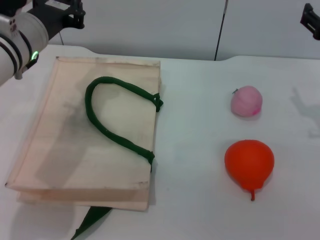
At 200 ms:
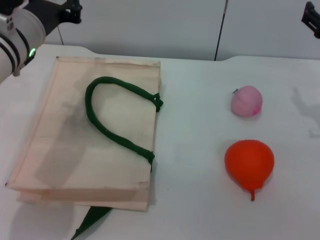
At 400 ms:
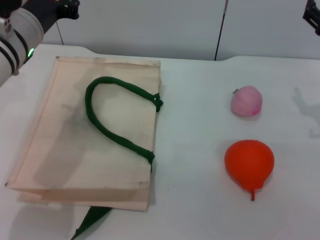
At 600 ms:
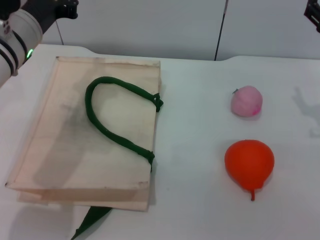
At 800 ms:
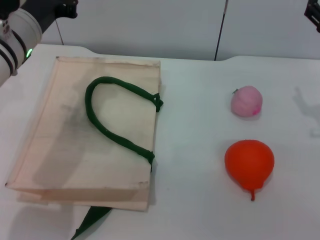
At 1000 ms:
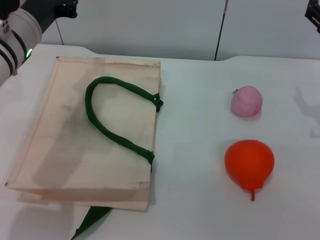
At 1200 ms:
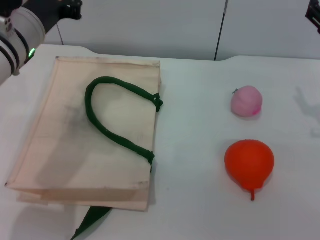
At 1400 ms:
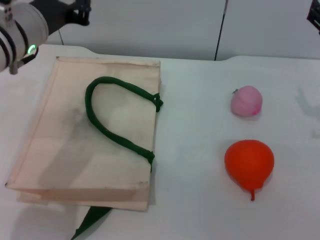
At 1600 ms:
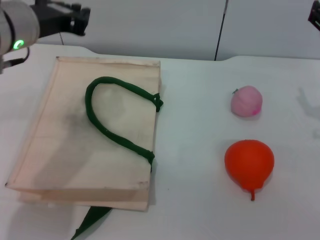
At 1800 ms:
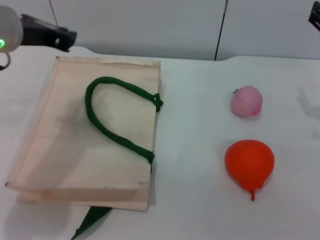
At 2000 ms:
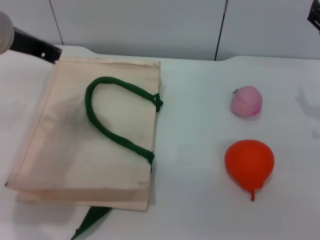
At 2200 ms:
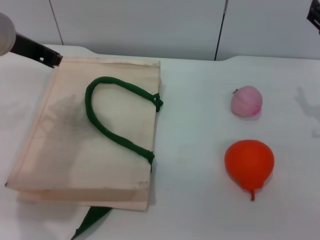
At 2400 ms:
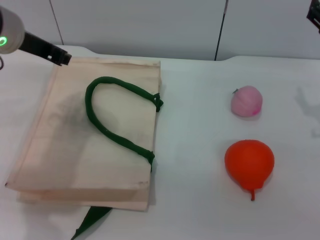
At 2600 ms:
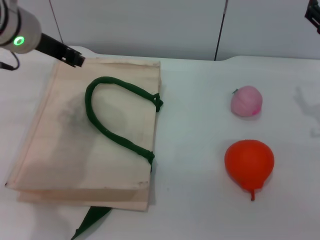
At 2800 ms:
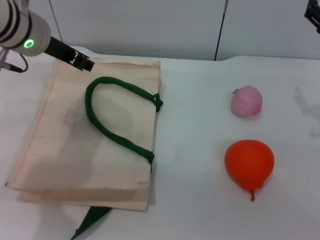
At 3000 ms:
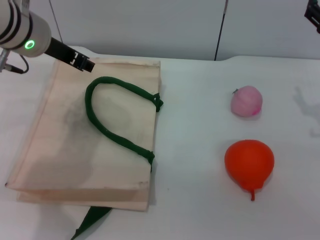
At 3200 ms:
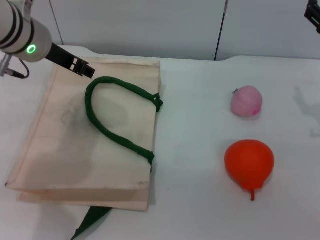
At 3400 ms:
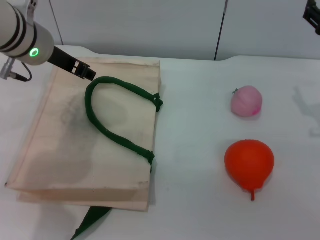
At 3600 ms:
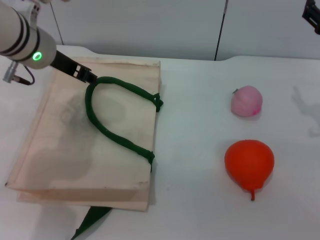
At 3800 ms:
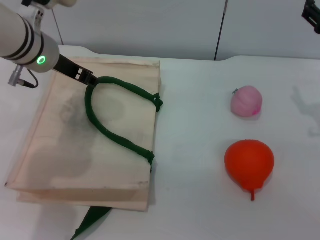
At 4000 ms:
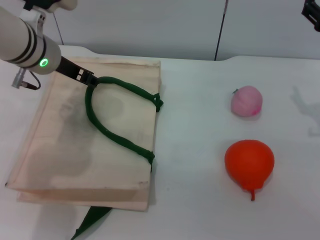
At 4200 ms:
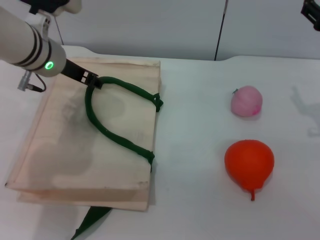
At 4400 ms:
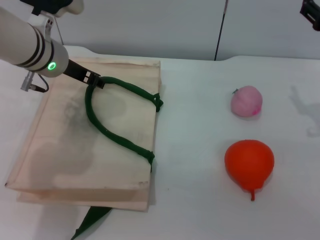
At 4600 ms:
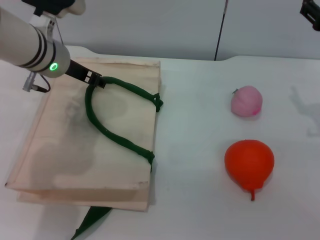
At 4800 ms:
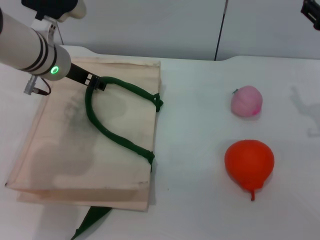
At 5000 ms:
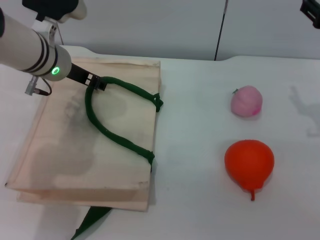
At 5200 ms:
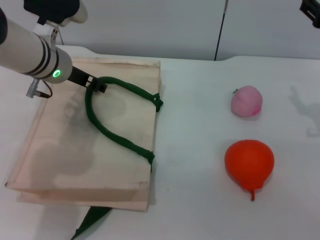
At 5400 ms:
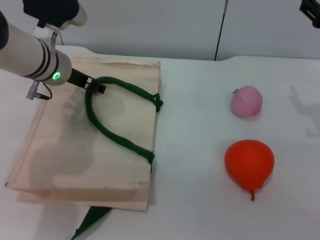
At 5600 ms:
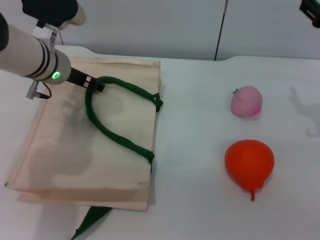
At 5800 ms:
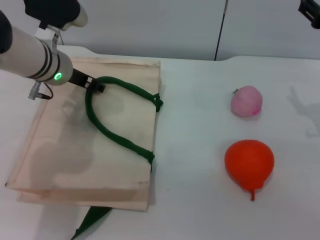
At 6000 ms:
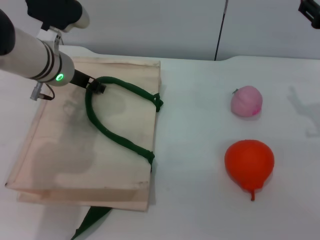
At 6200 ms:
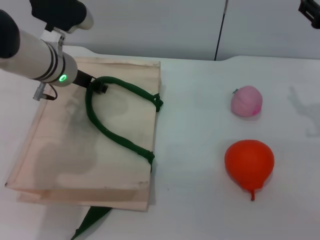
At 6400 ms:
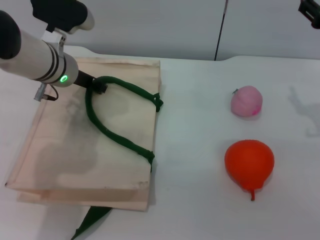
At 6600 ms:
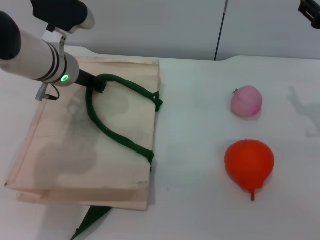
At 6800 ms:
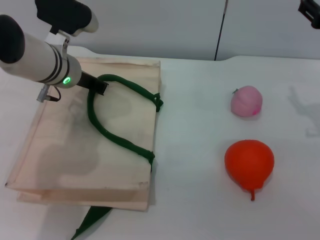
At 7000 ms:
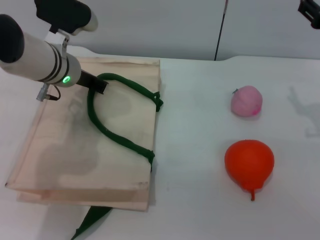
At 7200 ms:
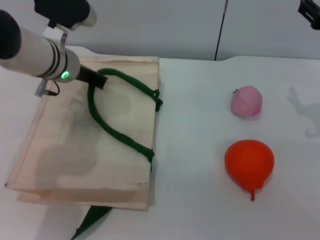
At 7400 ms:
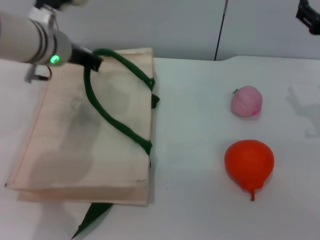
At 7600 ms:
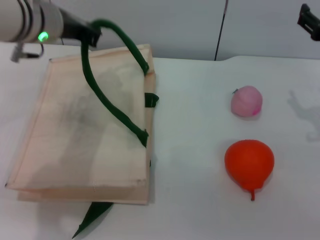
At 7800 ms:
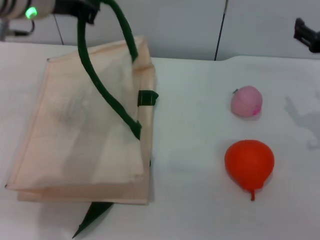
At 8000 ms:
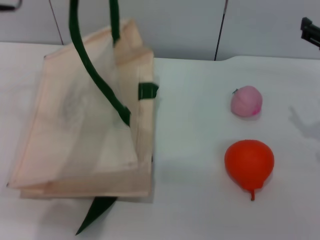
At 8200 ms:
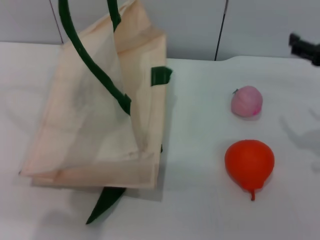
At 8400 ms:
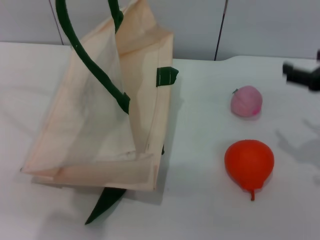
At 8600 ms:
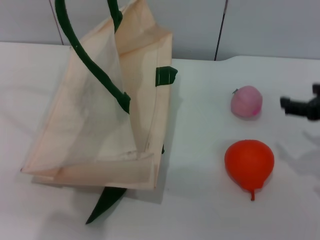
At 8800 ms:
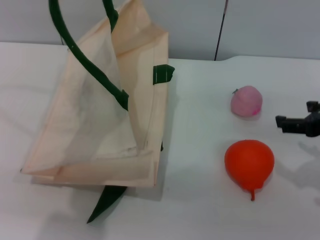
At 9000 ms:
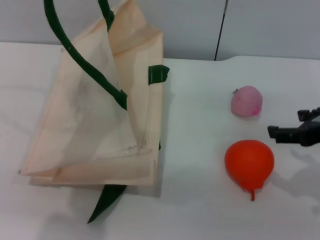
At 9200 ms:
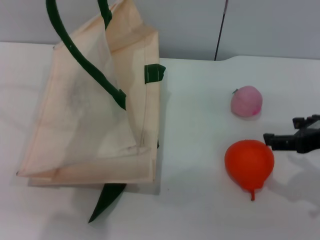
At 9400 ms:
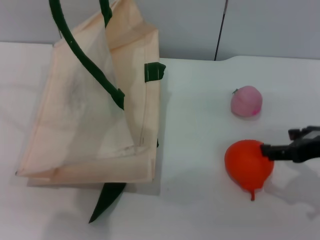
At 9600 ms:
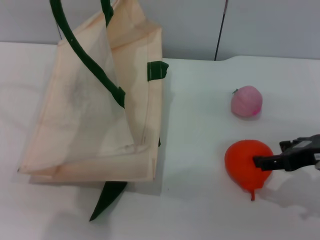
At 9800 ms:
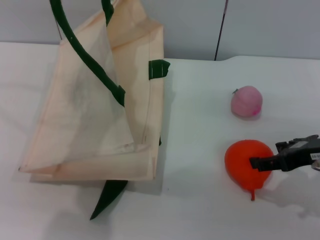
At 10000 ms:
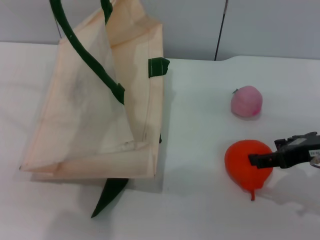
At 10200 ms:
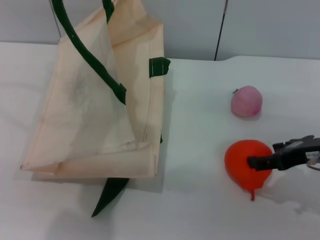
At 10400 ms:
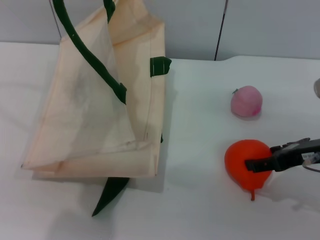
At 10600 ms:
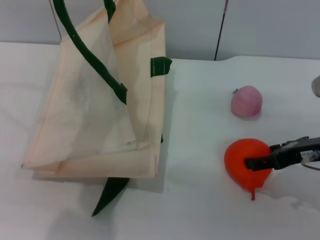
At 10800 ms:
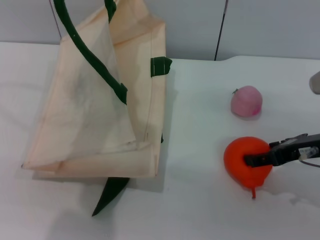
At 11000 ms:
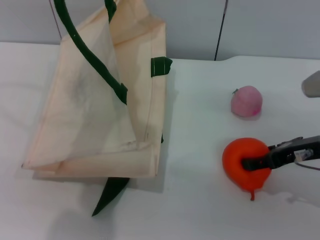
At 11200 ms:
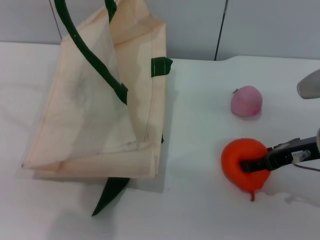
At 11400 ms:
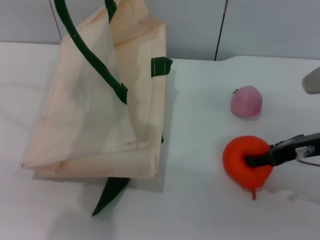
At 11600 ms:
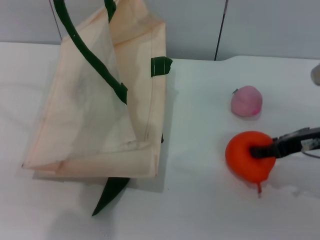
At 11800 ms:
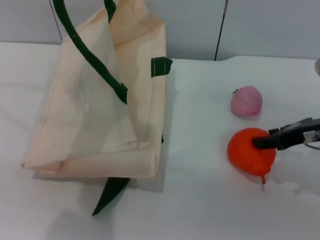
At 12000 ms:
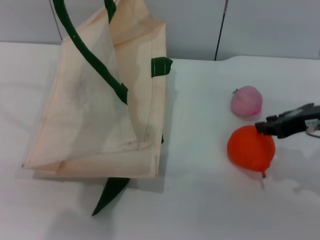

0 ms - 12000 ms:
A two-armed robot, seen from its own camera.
Task of the whole recording: pick up the orange and peach from the table and place it in the white handbag.
Step, 0 ms - 7200 ms: Lift the woven bag with the left gripper to open it.
0 ms - 1600 ms: The left gripper ends up roughly 5 cm from where it was.
1600 ms - 3000 ms: The left gripper opens.
3000 ms - 4400 ms: The left gripper moves downward, roughly 5 cm.
4400 ms - 6000 ms: The grippers move only a little.
6000 ms - 7600 ms: The left gripper moves upward, approximately 10 cm, and closes.
7600 ms - 9000 ms: The right gripper shifts some 10 cm backward, while the left gripper goes about 10 cm upward and backward.
9000 ms - 10400 ms: The right gripper ends up some 5 cm from where it was.
10400 ms - 12000 ms: The right gripper closes.

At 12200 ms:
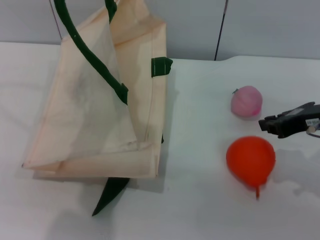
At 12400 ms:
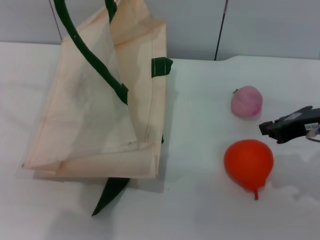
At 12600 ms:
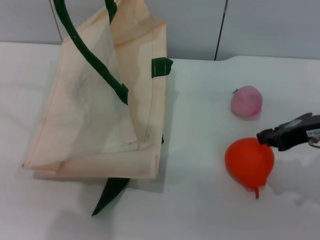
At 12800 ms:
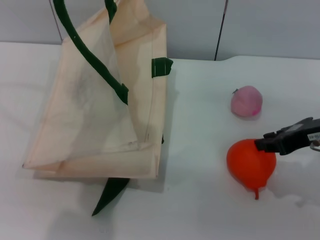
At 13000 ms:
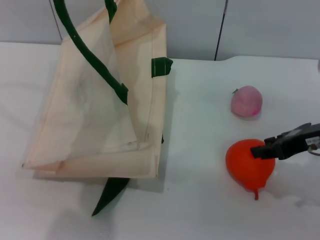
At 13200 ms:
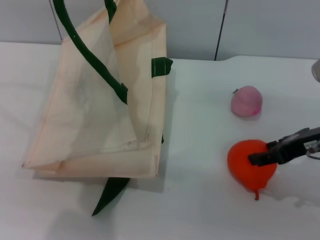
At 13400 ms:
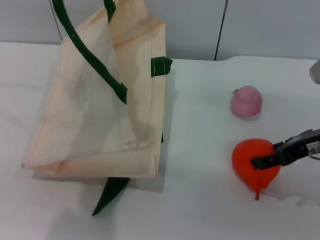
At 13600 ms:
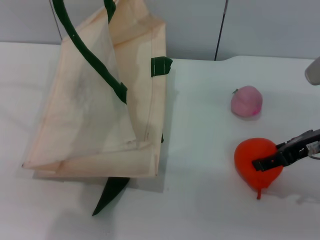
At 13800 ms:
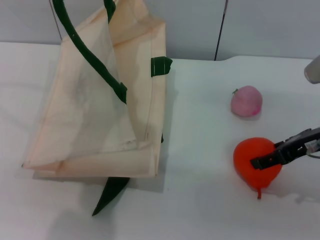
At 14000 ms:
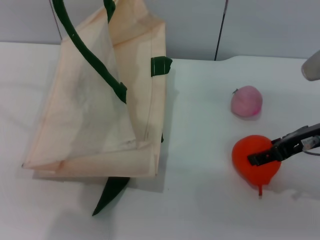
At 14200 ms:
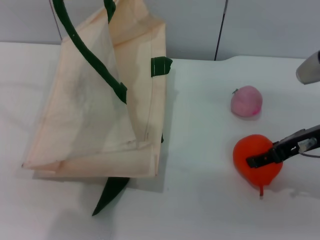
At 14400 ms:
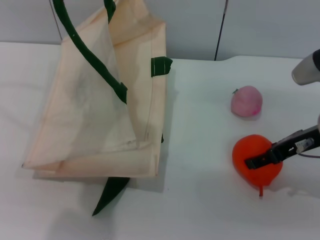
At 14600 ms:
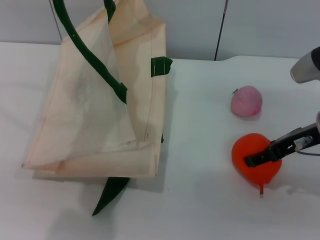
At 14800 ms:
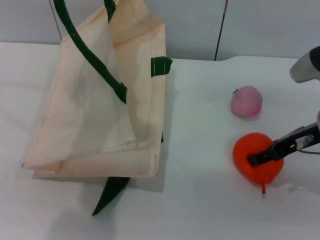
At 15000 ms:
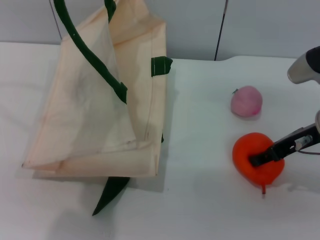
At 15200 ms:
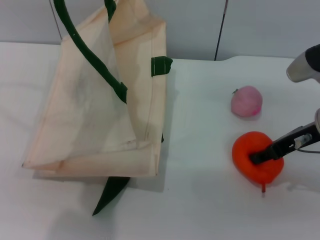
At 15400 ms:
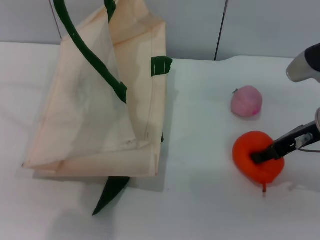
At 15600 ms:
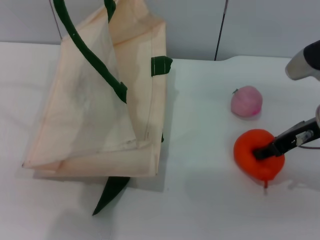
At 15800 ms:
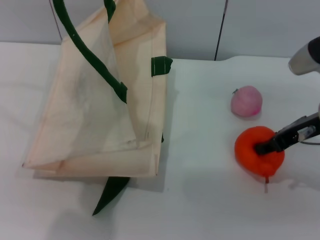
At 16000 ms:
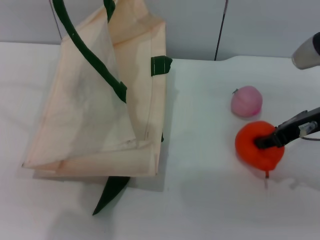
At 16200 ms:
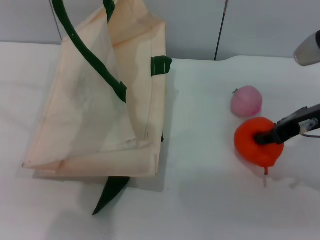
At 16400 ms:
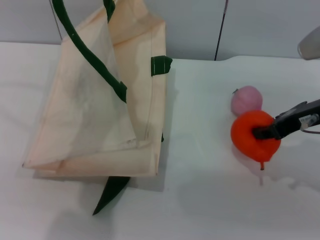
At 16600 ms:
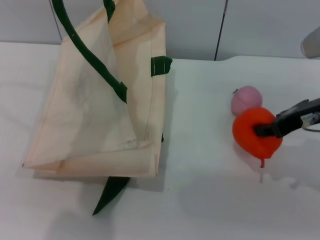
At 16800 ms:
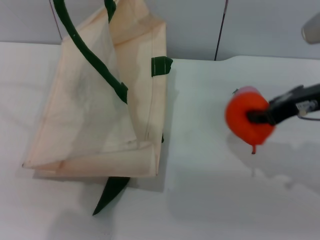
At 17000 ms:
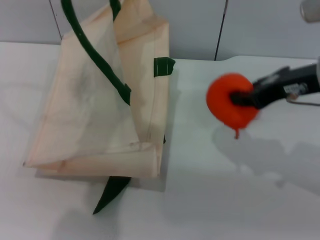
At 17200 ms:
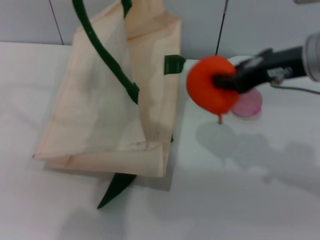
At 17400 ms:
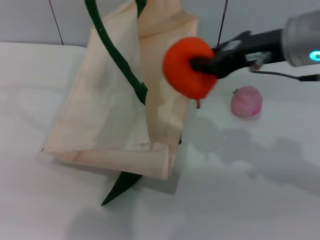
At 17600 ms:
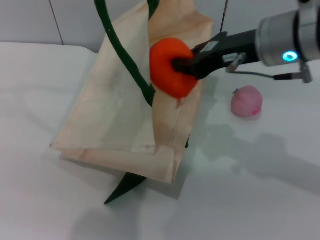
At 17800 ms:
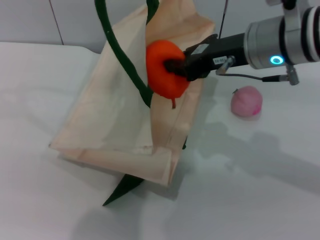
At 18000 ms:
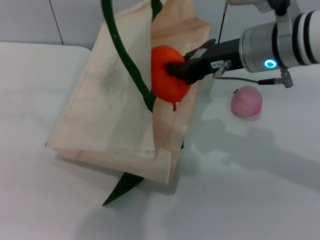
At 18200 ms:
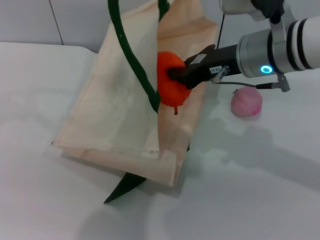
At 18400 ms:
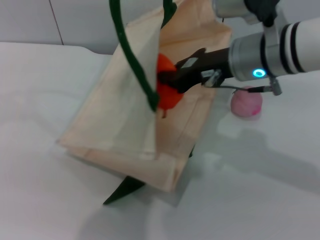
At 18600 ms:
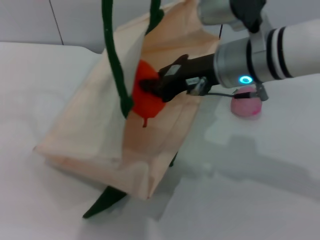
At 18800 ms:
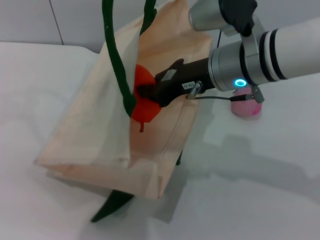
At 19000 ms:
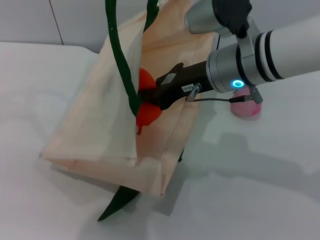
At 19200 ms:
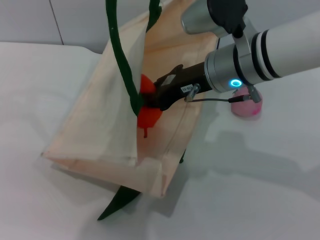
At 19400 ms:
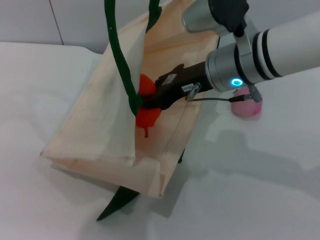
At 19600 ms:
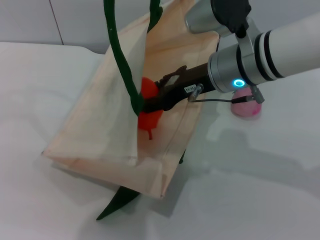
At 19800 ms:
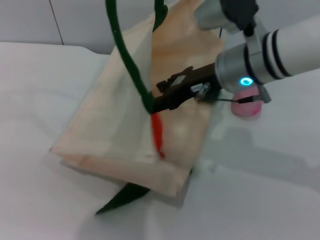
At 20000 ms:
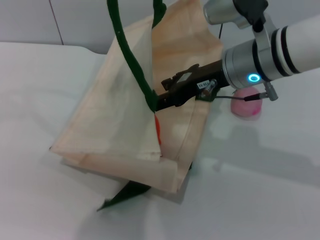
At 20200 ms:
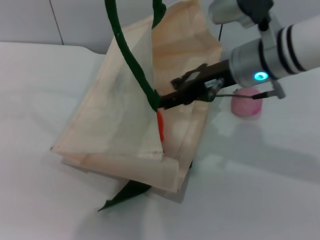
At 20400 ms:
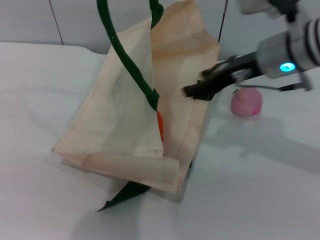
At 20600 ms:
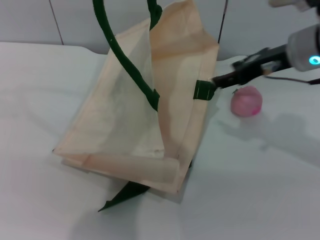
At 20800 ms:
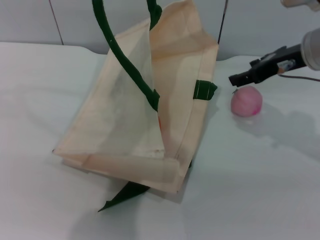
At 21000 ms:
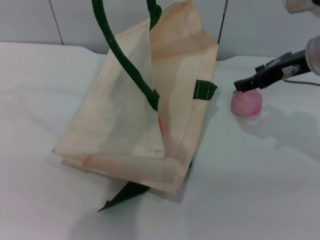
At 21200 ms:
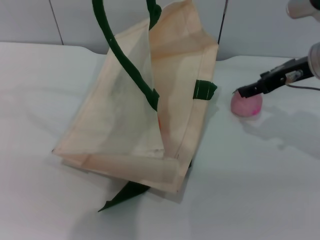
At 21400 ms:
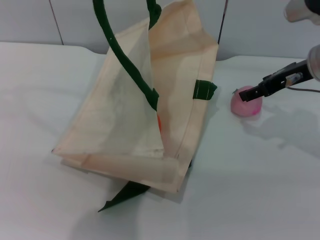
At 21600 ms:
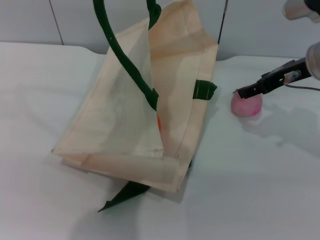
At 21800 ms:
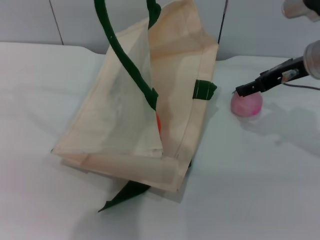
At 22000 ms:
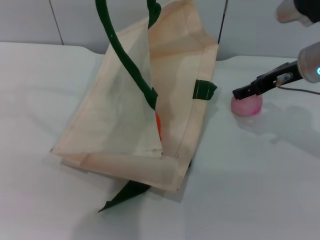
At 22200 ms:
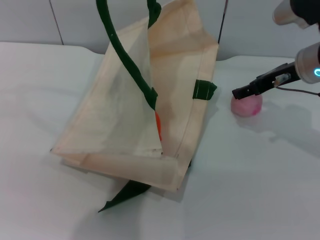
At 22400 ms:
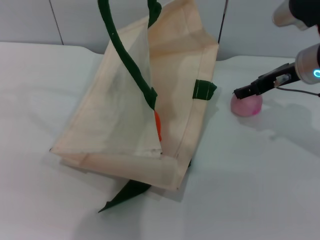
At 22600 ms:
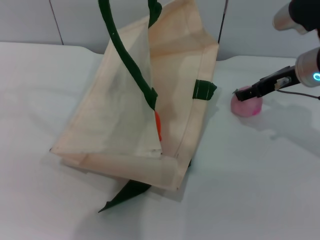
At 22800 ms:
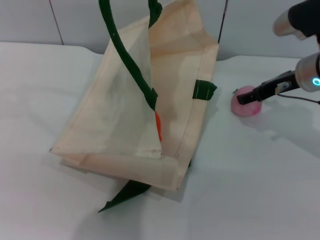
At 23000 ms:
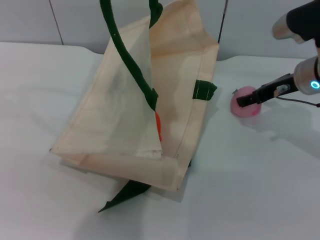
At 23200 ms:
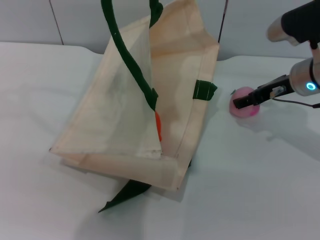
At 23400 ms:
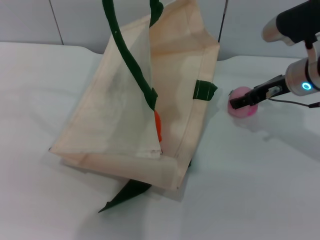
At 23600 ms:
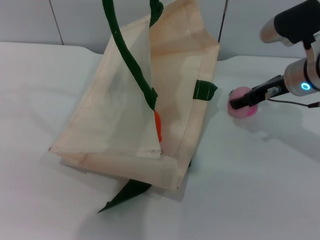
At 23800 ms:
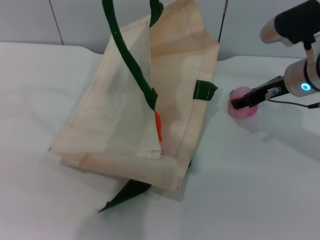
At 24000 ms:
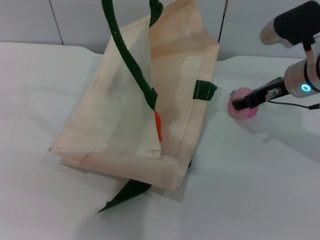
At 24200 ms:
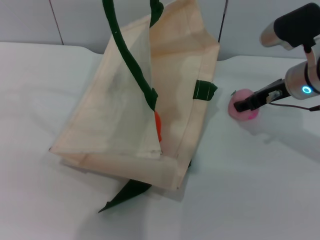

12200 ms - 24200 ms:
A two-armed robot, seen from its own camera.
Task of the whole recording: pick up the orange and peach from the table and place it in the white handbag.
Step, 12200 ms - 16800 ms: Pick up the orange with the right gripper.
Step, 17000 ms - 20600 ms: Place the orange into the woven bag with the right gripper.
12200 ms - 13800 ms: The right gripper opens.
13800 ms - 15200 ms: The grippers make only small movements.
15200 ms - 16600 ms: The right gripper closes.
16600 ms - 18200 ms: The left gripper shifts about 5 cm to the right. The right gripper is displaced to the left by roughly 10 cm, and closes.
18200 ms - 19800 ms: The right gripper opens its fingers.
19800 ms - 21200 ms: The right gripper goes approximately 10 cm to the right.
21200 ms - 24200 ms: There are only small adjustments of the grippers.
